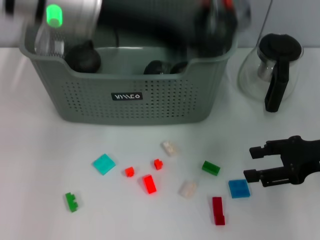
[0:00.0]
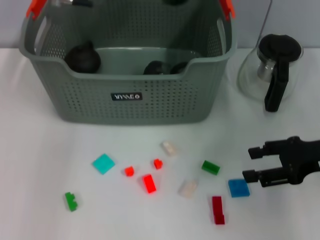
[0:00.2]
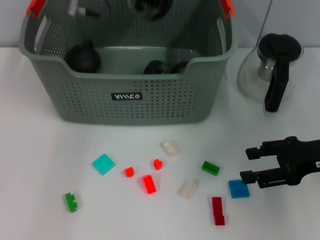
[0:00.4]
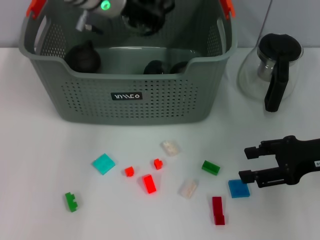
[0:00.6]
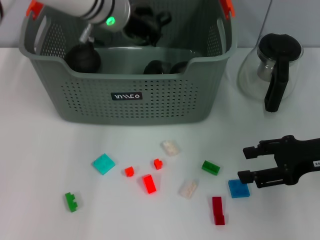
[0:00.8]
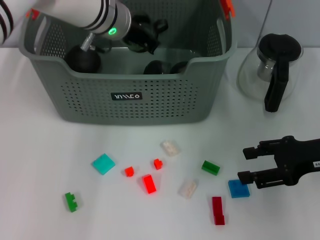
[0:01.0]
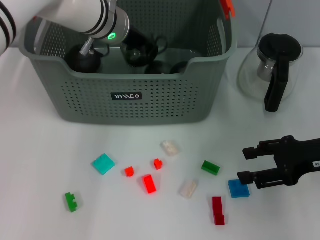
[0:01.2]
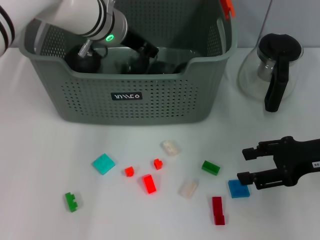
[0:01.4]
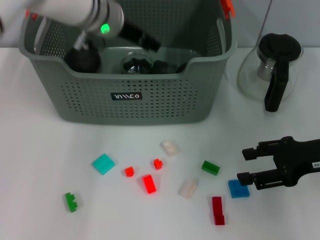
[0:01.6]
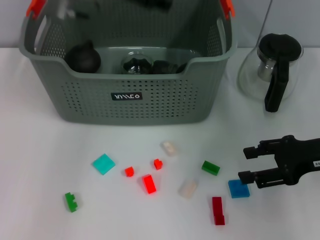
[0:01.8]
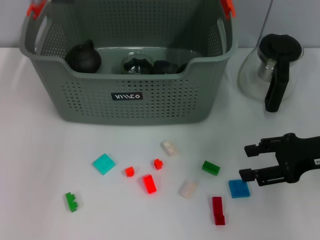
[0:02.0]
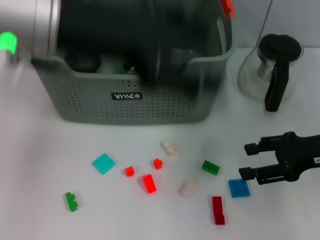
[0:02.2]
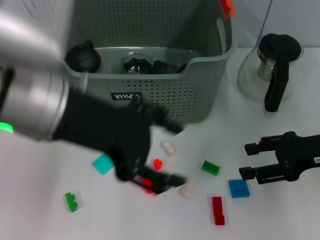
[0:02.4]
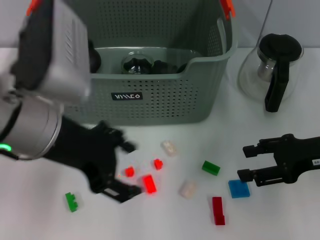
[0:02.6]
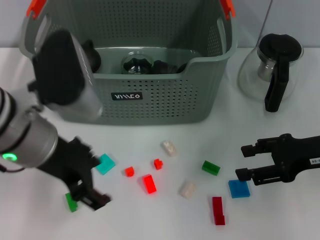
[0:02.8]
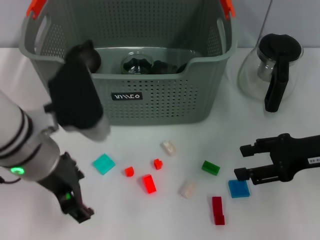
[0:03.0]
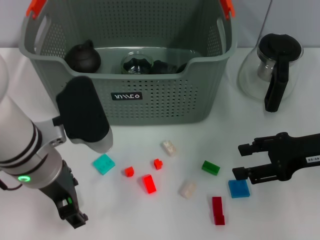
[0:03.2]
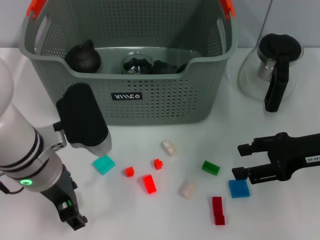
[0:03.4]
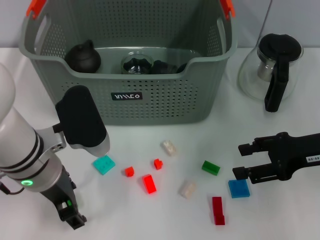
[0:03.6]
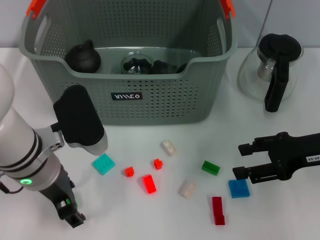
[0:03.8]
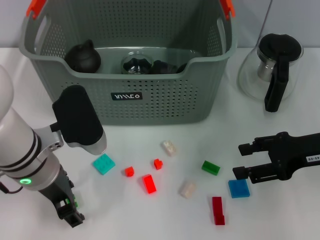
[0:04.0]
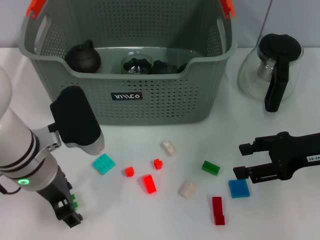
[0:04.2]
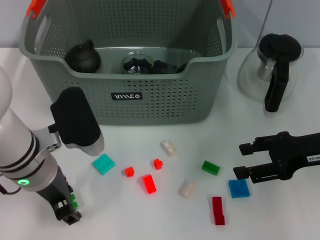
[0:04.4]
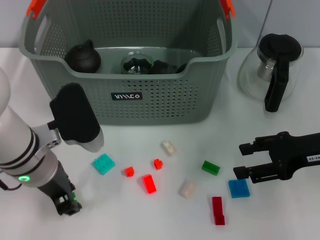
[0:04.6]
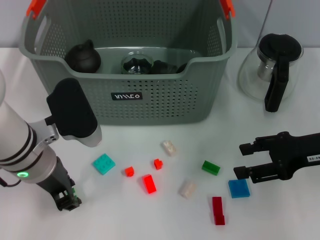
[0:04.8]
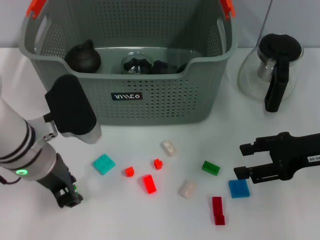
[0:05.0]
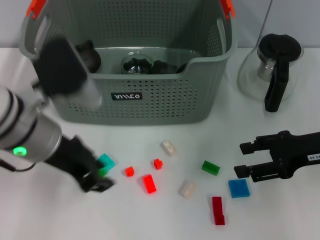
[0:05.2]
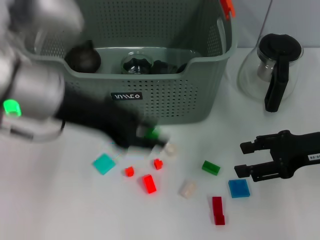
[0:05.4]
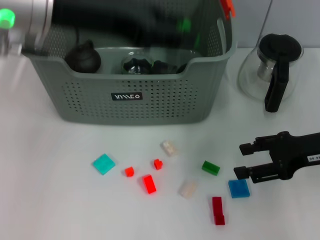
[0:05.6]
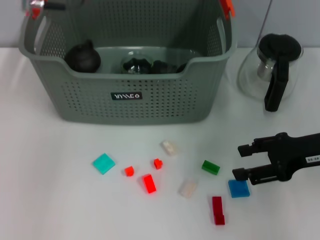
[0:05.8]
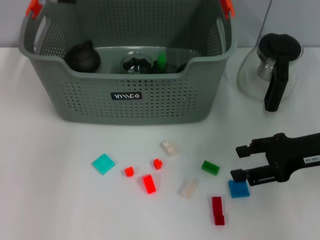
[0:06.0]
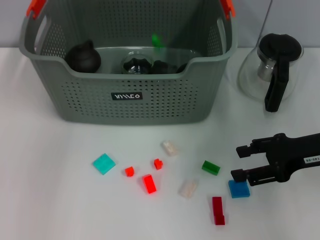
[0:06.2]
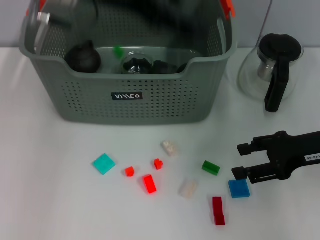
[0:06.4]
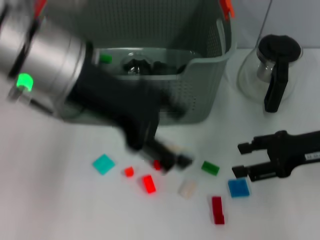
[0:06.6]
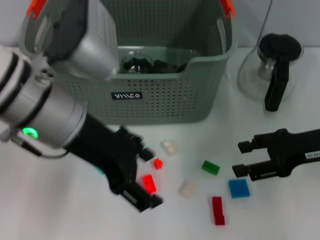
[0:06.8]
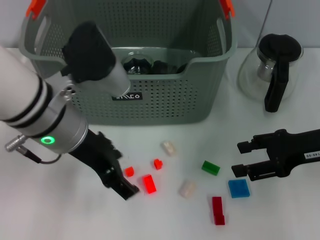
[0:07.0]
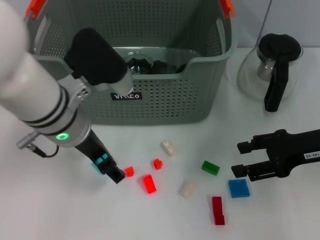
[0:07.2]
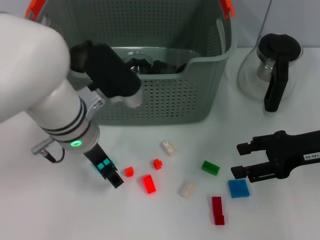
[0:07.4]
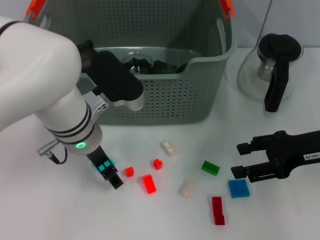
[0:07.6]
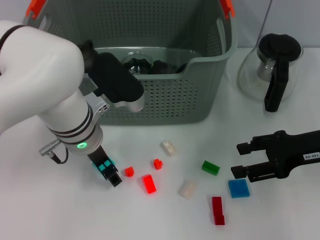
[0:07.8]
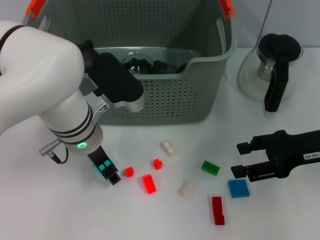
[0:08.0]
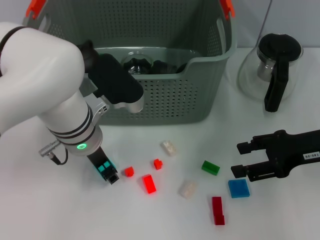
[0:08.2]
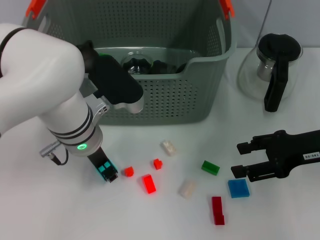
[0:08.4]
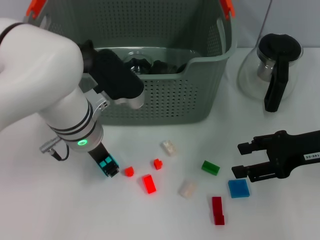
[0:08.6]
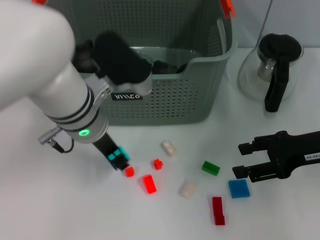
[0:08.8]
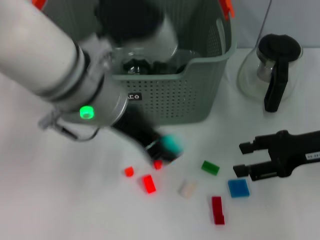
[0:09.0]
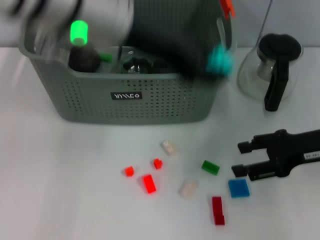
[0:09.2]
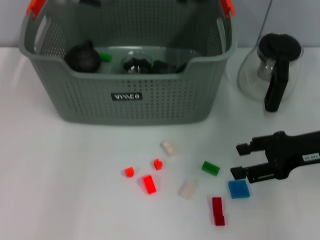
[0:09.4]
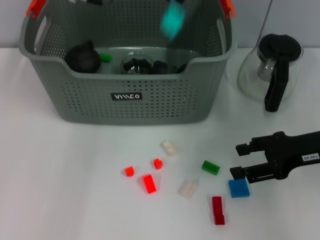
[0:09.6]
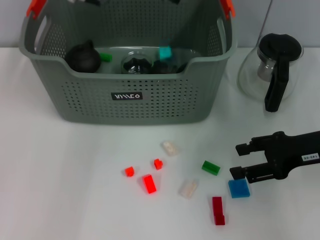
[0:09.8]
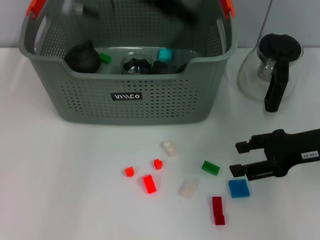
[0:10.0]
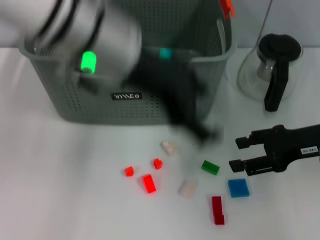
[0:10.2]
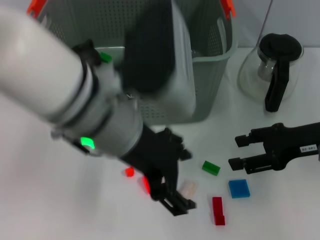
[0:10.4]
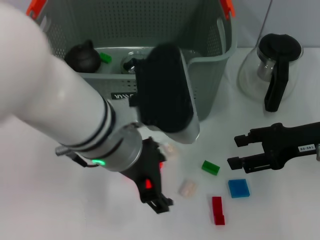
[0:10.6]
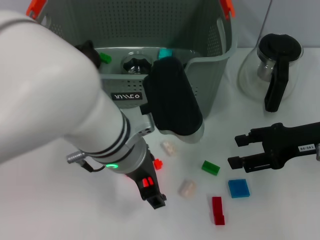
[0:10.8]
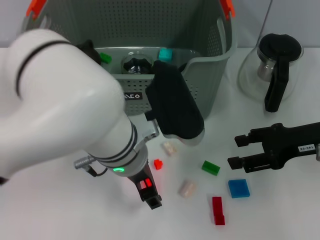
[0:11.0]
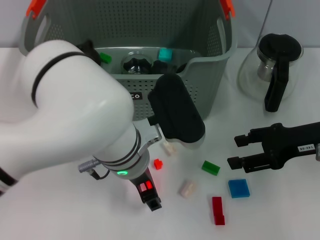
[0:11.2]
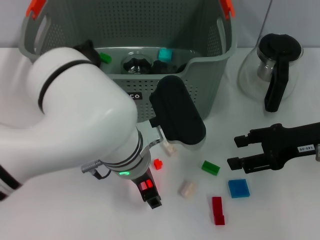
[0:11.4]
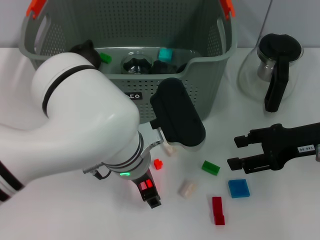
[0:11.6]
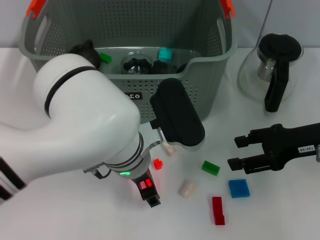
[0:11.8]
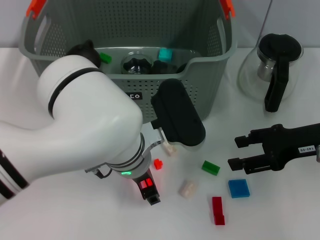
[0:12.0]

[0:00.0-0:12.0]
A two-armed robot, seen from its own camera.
Task of the whole recording: pick up the teacup on the table and place it into the storage bin, pick up the block on the table and place it into the storage bin.
Step, 0:00.0 to 0:01.6: Place the cup in the storage box with left gripper.
Step, 0:01.8 to 0:04.6: Grasp the green block with left gripper.
Step, 0:04.8 to 0:06.2: Place the green block in the storage box with left gripper.
Step, 0:06.4 to 0:08.4: Grasp the light blue block with left gripper.
Step, 0:08.6 to 0:09.8: Place the light blue block in the storage box with left gripper.
0:00.0 to 0:01.6: The left gripper goes some 15 cm forward and downward.
0:01.6 to 0:03.0: The left gripper heads backward, covering about 20 cm, and opens its fingers.
0:03.0 to 0:04.4: The left gripper is displaced downward by about 5 cm.
0:04.4 to 0:06.0: The left gripper heads upward and forward, covering about 20 cm.
0:06.0 to 0:07.6: The left gripper shifts some 20 cm downward and backward, and opens up.
0:07.6 to 0:09.0: The left gripper heads upward, covering roughly 15 cm, and closes up.
0:09.0 to 0:10.4: The left gripper travels forward and back again, about 15 cm each way, and opens its fingers.
0:10.4 to 0:12.0: The left gripper goes about 10 cm downward.

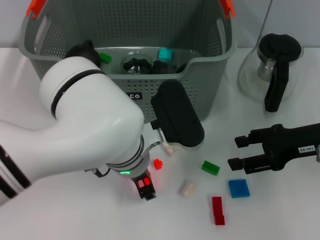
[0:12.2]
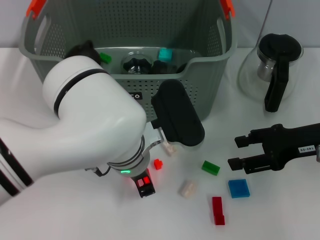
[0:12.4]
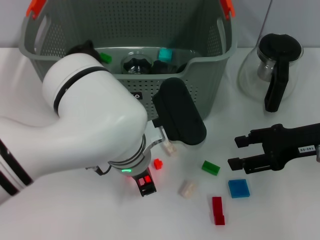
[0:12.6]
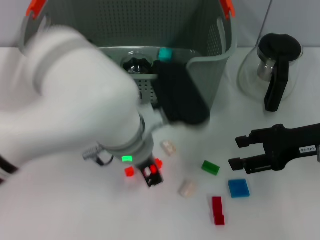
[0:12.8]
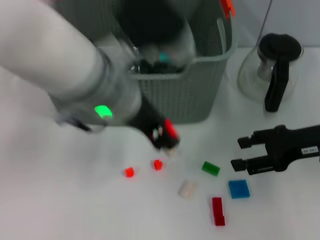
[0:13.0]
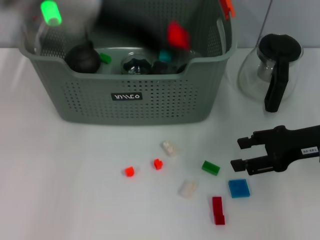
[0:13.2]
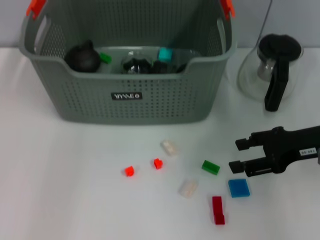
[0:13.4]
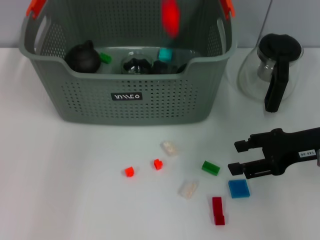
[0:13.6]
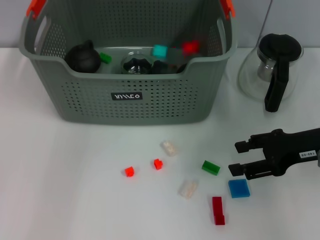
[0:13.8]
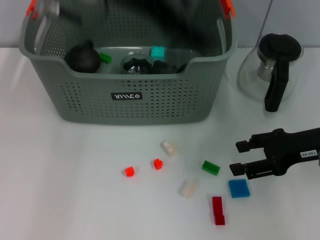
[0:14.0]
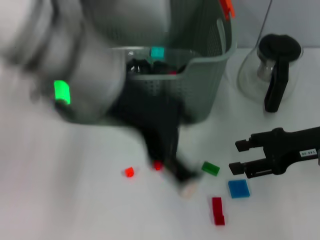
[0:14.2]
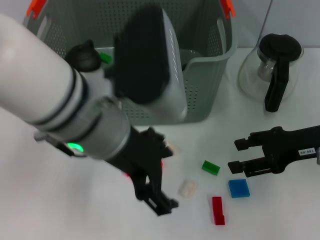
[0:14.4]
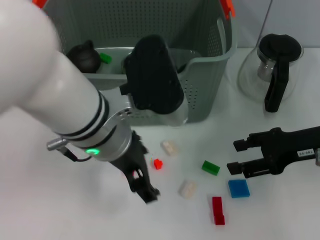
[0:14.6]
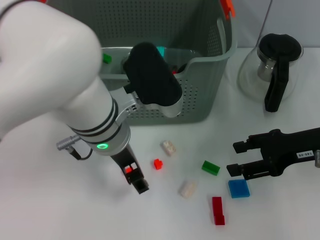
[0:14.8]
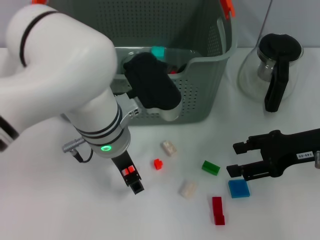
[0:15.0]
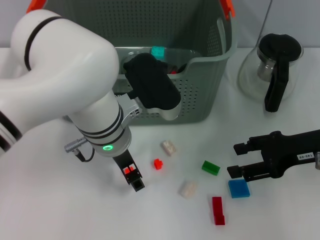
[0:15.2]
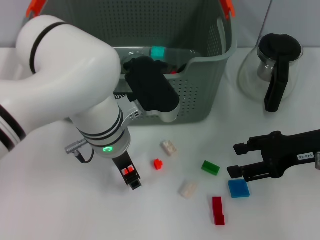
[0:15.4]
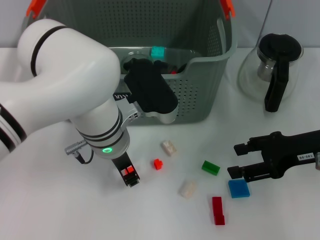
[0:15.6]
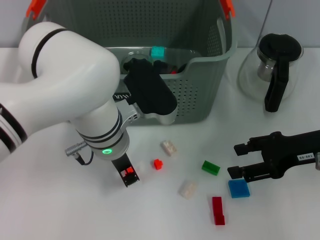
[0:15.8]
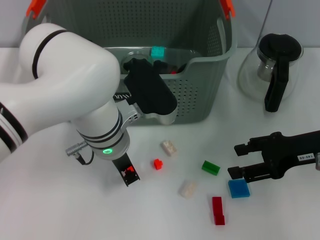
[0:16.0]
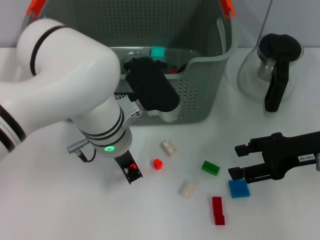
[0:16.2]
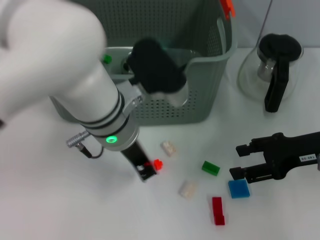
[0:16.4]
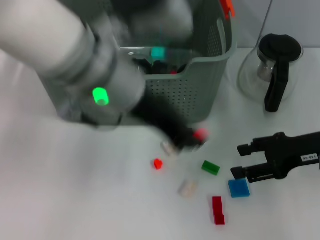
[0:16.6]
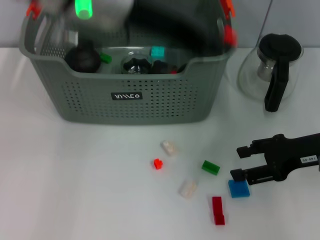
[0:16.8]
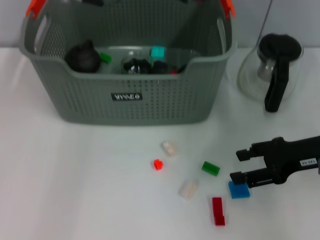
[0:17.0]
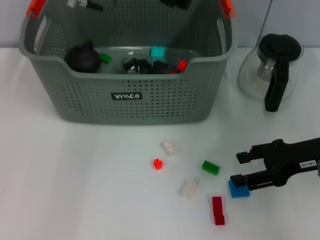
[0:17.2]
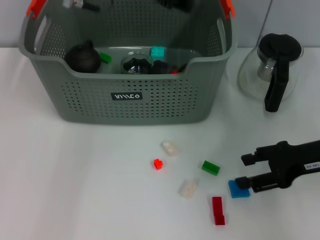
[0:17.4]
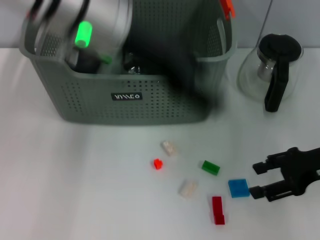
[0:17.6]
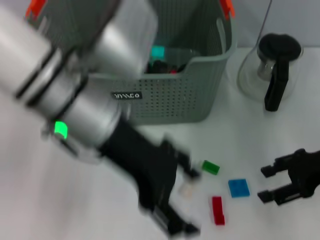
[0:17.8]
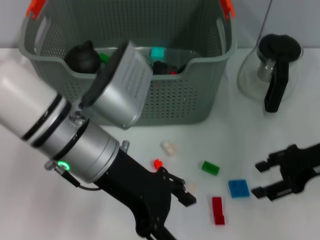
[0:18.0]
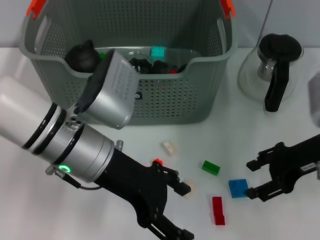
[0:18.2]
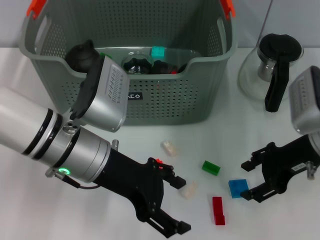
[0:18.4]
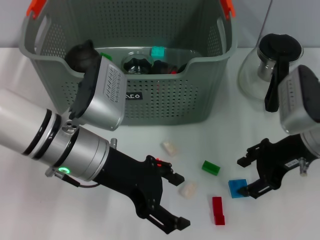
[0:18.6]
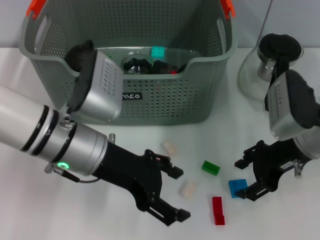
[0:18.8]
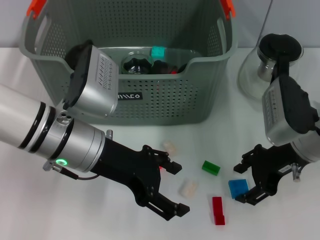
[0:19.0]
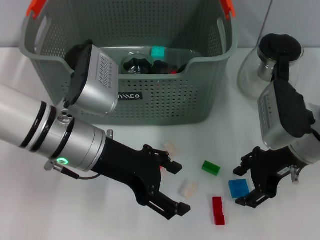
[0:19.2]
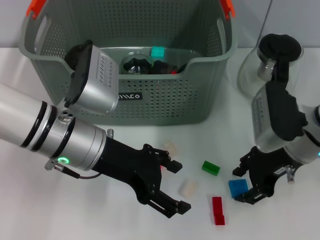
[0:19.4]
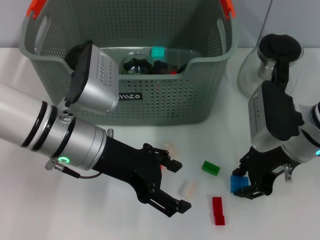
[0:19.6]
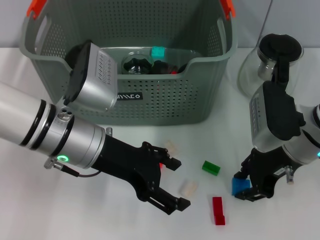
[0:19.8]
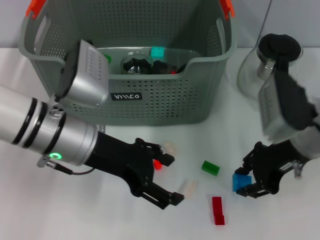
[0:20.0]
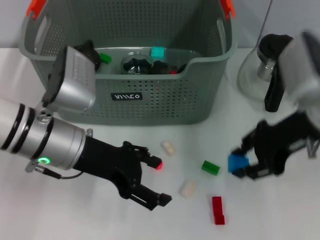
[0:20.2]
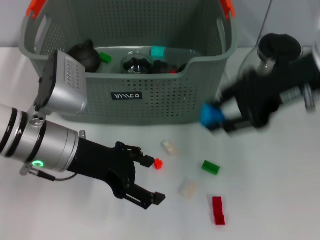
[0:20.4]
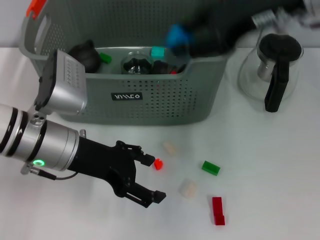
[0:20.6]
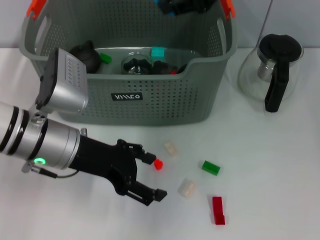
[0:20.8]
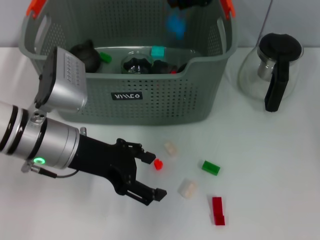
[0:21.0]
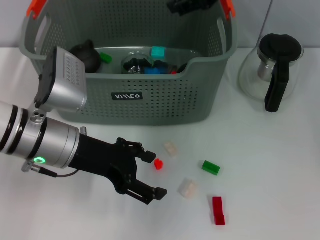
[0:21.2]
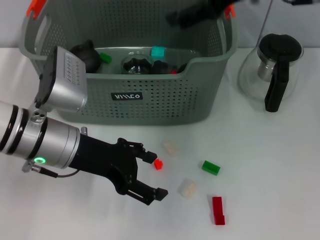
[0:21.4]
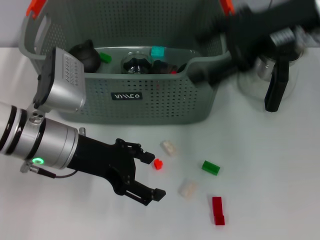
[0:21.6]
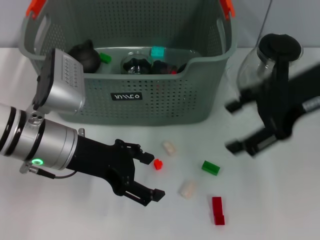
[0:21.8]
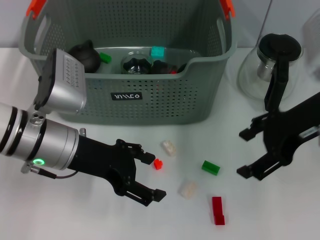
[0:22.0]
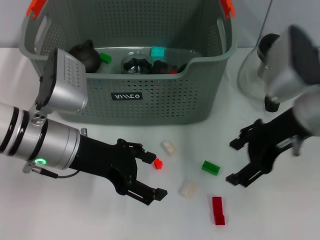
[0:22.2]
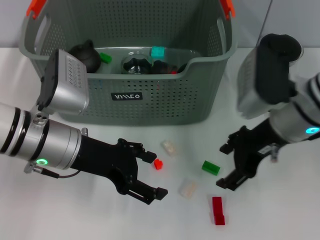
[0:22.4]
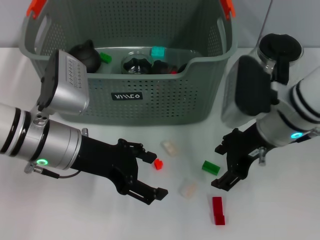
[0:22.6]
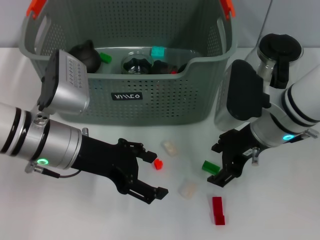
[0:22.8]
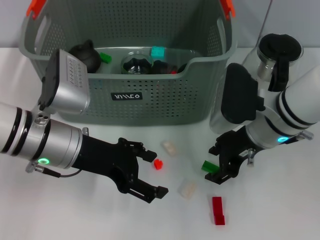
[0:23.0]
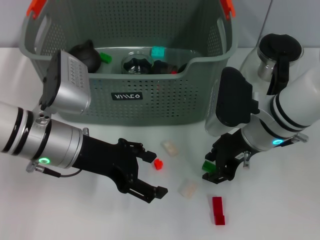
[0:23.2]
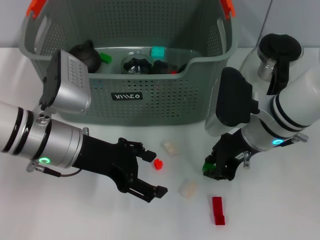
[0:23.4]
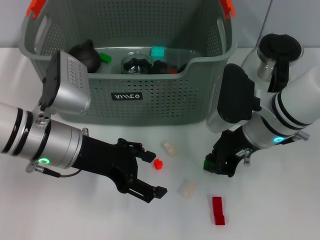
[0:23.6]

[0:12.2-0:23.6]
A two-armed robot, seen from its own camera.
Task of the whole recording: pick up the teacup on the table and place it into the storage bin, pick up the block on the table and place it into the storage bin.
Step, 0:12.6 to 0:13.6: Place the orange block in the storage box with left gripper.
Step, 0:13.8 to 0:16.0: Grasp the orange block with left gripper.
Step, 0:16.2 to 0:17.2: Place the orange block in the storage box with left gripper.
Step, 0:17.4 to 0:19.6: Grasp the dark blue block with right gripper.
Step, 0:20.0 to 0:21.2: Place the dark blue block in the storage box with right gripper.
Step, 0:21.4 to 0:23.4: Grasp the green block with right gripper.
0:12.2 to 0:13.6: The left gripper heads upward and forward, covering roughly 25 cm, and closes its fingers.
0:13.6 to 0:15.0: The left gripper shifts approximately 20 cm downward and backward, and opens its fingers.
0:15.0 to 0:16.4: The left gripper closes its fingers.
0:16.4 to 0:17.8: The left gripper moves upward, some 5 cm, and opens up.
0:17.8 to 0:19.4: The right gripper heads to the left, covering roughly 10 cm. Meanwhile the left gripper goes roughly 10 cm downward.
0:19.4 to 0:20.8: The right gripper travels upward by about 20 cm.
0:20.8 to 0:22.2: The right gripper shifts about 15 cm downward and backward, and opens its fingers.
0:22.2 to 0:23.6: The right gripper is displaced downward and to the left by about 10 cm, and closes its fingers.
